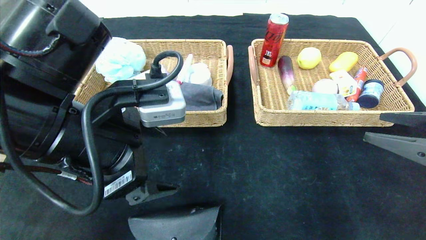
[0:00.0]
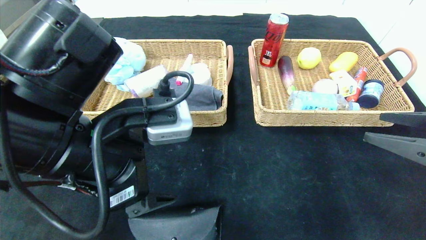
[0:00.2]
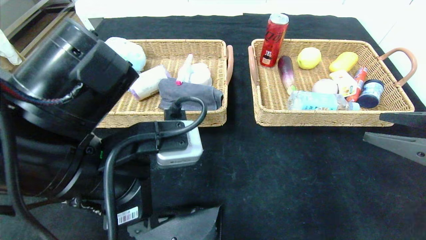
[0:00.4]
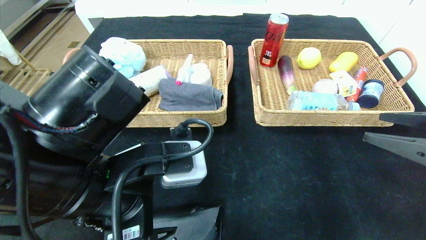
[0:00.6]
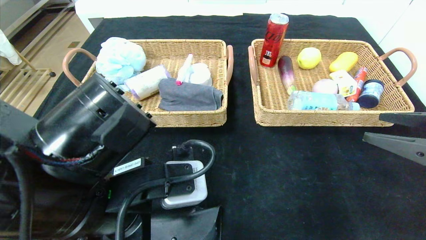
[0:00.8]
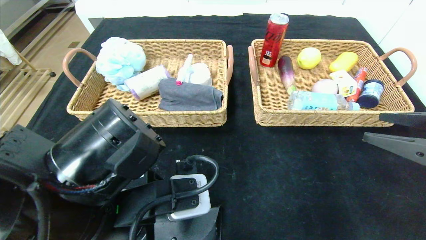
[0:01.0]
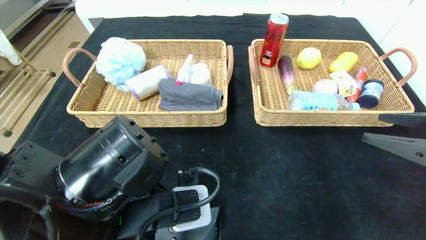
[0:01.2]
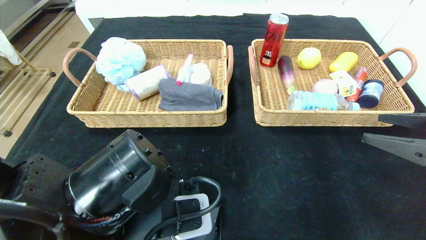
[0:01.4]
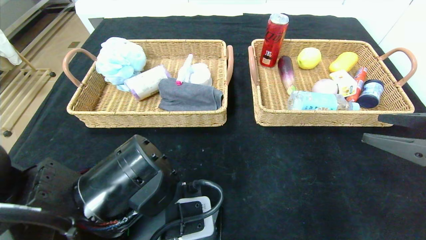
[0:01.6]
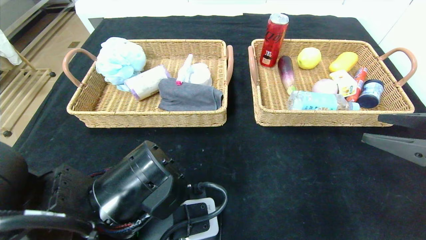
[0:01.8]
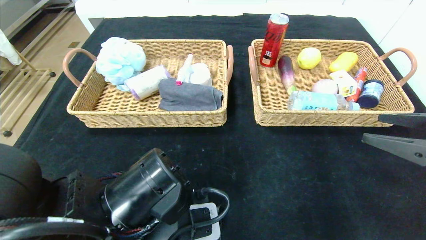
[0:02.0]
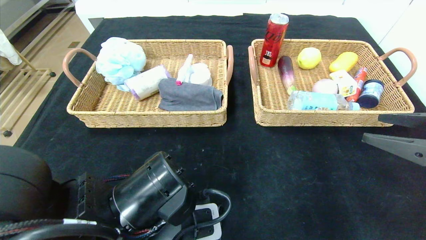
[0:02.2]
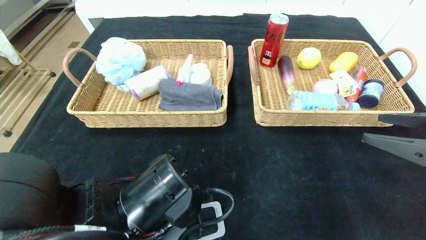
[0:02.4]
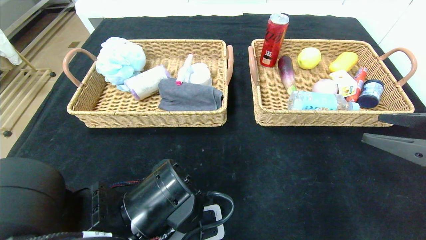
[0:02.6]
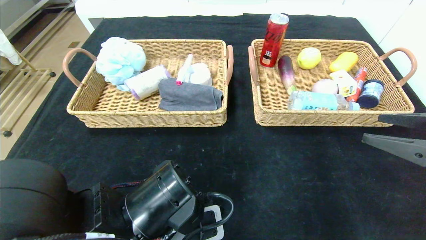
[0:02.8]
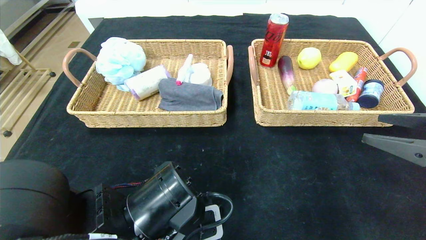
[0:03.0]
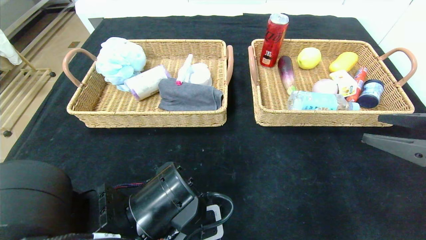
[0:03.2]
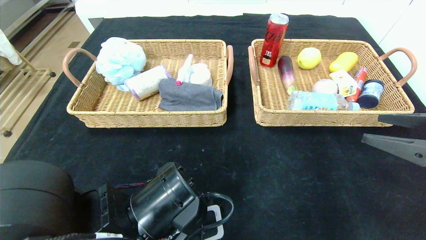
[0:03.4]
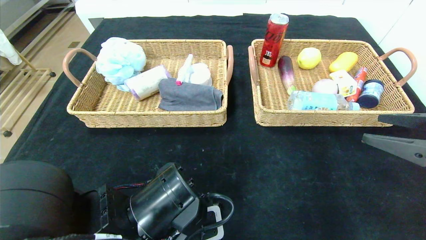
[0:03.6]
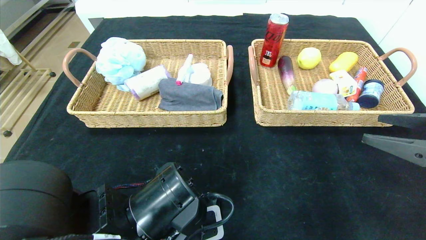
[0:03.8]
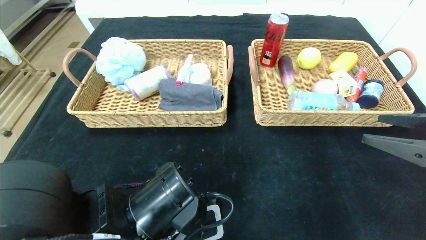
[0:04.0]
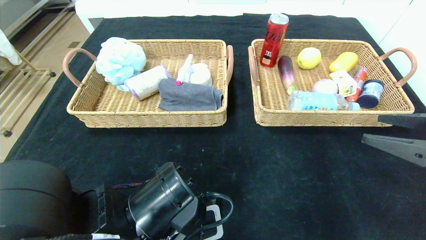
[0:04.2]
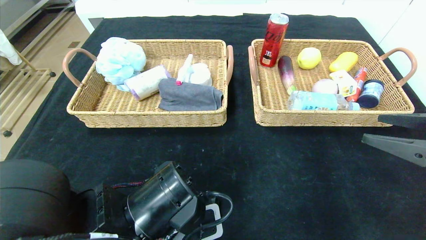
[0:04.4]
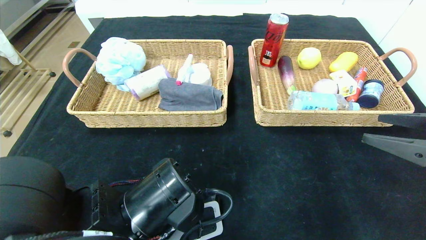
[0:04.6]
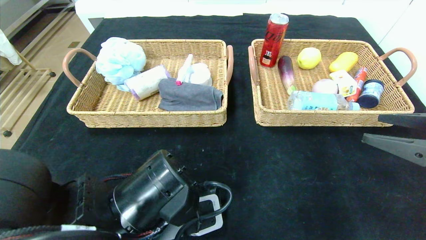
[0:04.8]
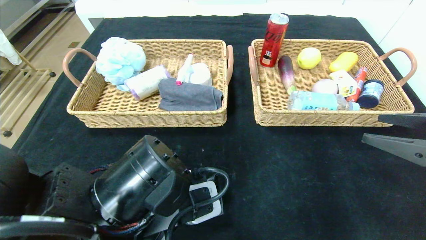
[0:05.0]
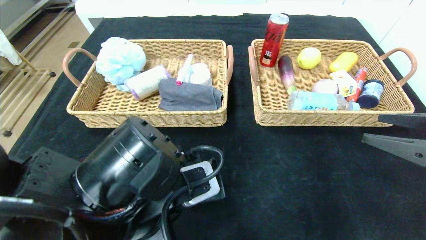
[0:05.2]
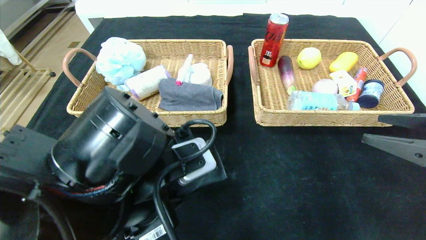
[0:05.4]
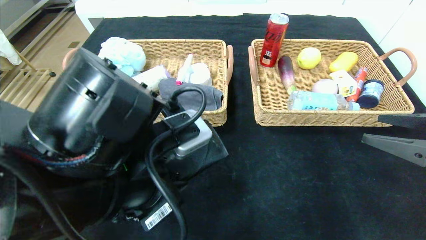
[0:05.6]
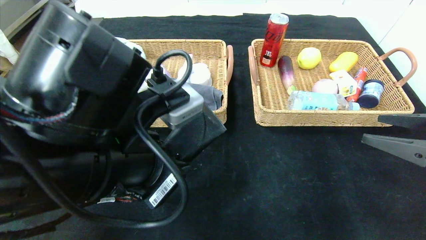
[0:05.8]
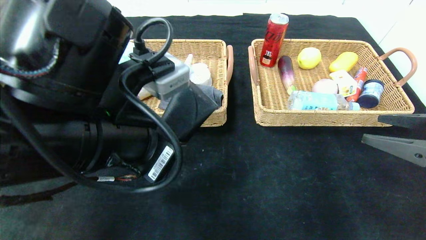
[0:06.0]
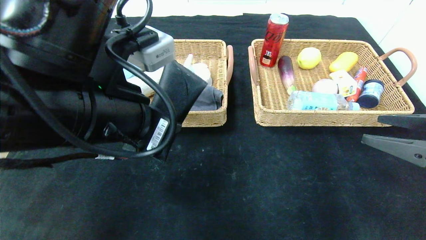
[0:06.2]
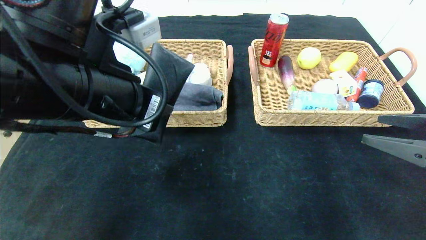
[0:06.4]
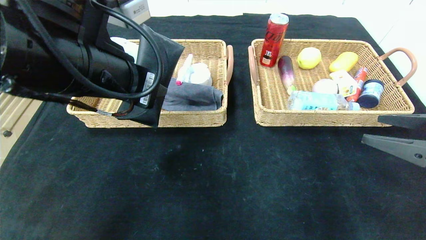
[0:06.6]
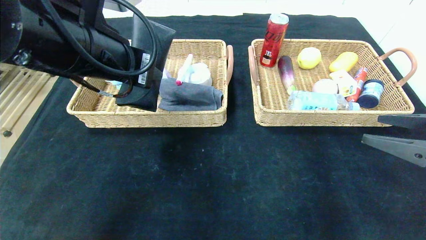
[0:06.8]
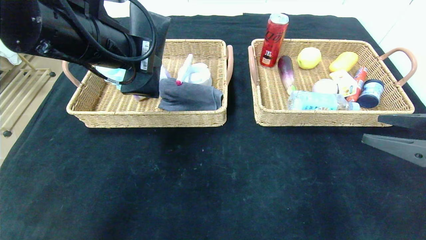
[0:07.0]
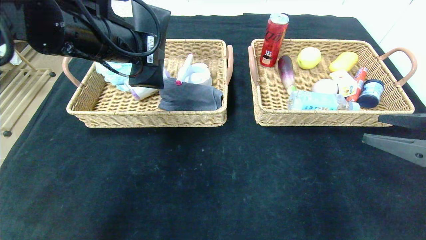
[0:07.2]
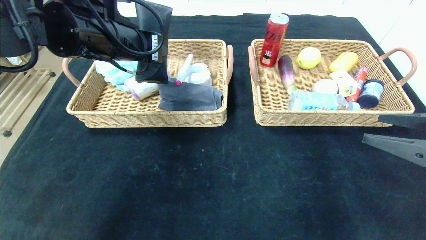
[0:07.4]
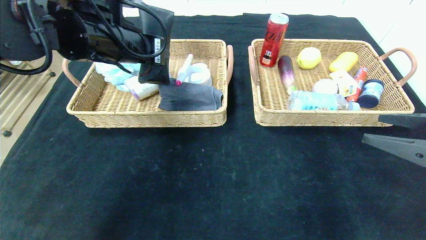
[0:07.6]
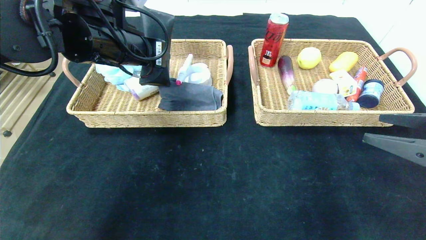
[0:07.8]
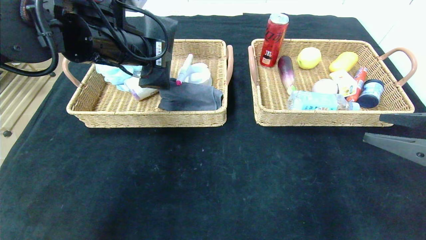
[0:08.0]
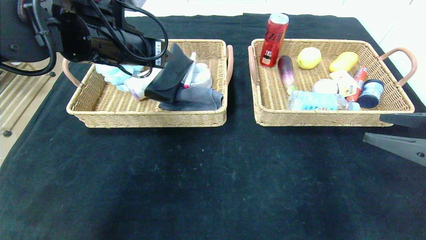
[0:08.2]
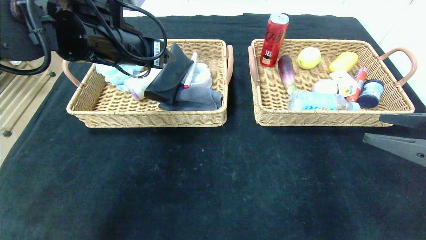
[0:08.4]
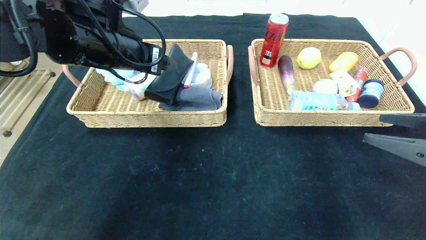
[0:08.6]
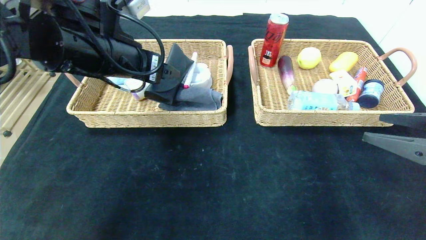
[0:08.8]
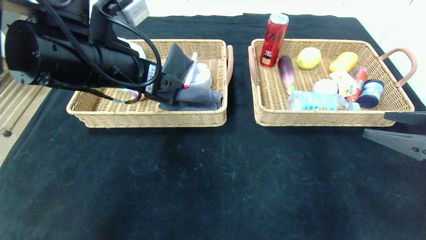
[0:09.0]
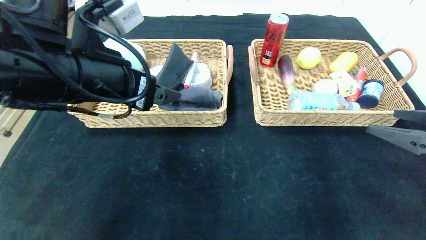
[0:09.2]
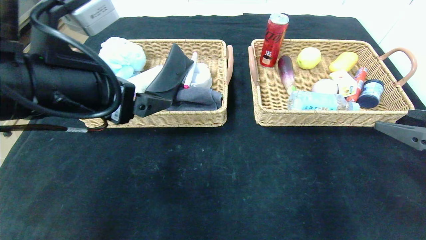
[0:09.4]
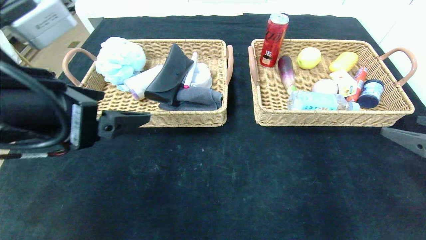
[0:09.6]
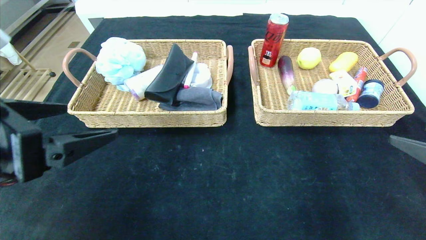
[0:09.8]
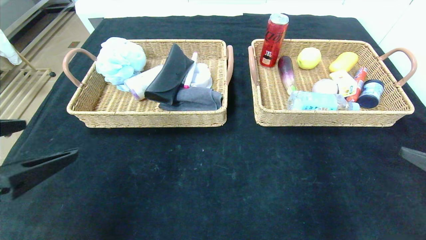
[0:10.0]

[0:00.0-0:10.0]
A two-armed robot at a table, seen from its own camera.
Step, 0:00.0 to 0:08.4: Grasp the glasses case and put it in the left basket.
0:00.0 to 0:01.4: The left gripper is displaced downward by approximately 10 cm.
0:01.4 to 0:02.8: The grippers move only a little.
0:02.8 to 0:04.2: The left gripper closes its fingers.
0:04.2 to 0:05.8: The left gripper moves upward, roughly 10 cm.
0:05.8 to 0:07.2: The left gripper shifts some 15 cm forward, upward and to the left.
0:07.2 to 0:08.6: The left gripper opens up.
0:08.6 to 0:10.0: The left gripper is displaced backward by some 25 cm. Meanwhile the right gripper travels backward by about 5 cm.

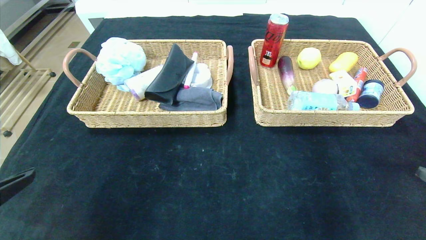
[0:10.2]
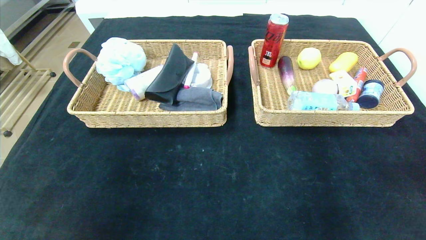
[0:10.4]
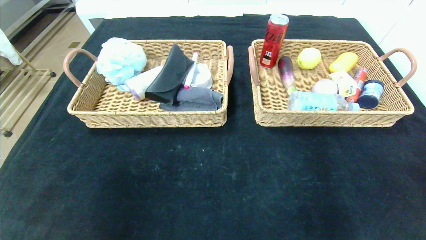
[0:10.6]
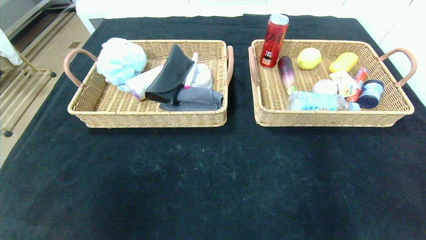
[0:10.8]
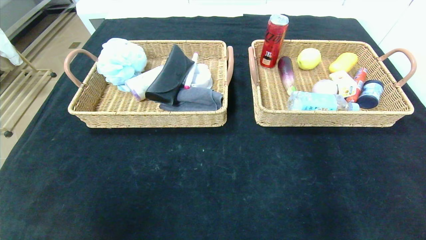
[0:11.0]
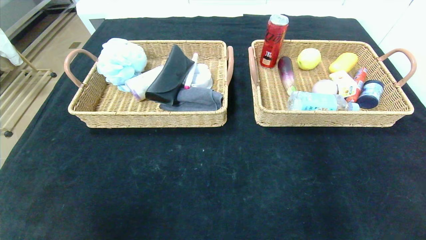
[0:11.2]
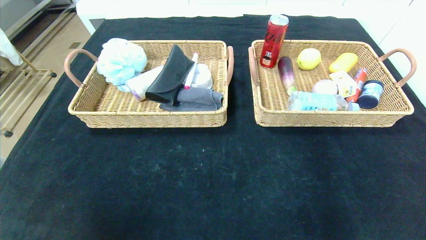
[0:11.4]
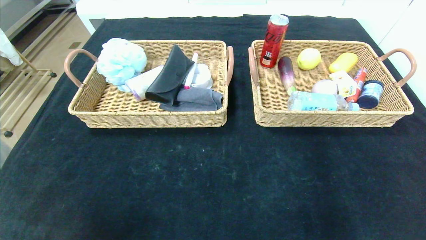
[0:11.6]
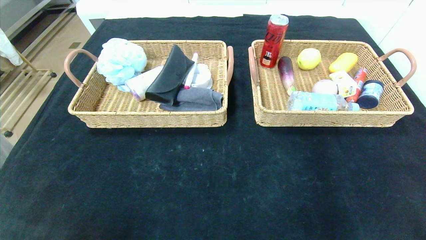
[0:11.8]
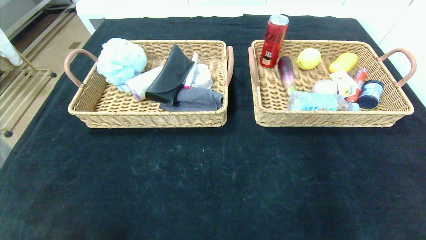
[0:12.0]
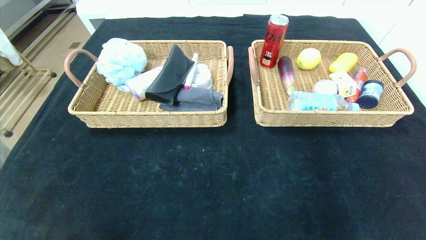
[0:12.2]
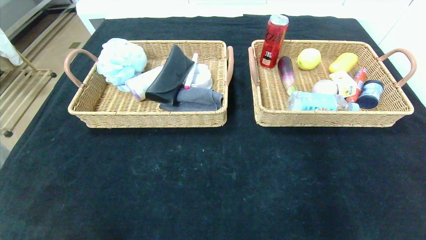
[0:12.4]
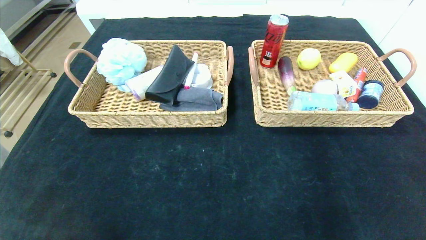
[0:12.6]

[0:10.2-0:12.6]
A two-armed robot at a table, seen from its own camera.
0:10.2 to 0:11.4: Both grippers move backward and downward, some 15 cm.
